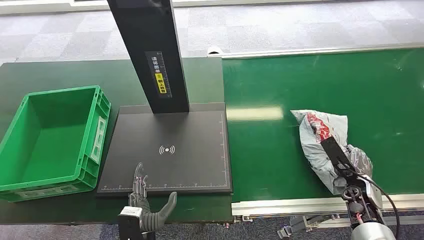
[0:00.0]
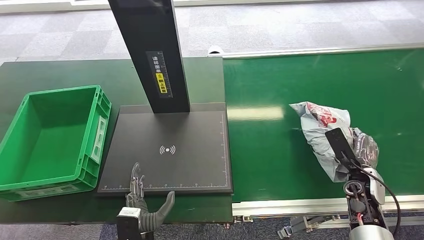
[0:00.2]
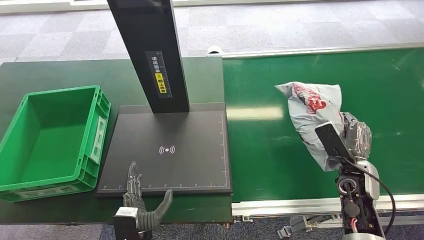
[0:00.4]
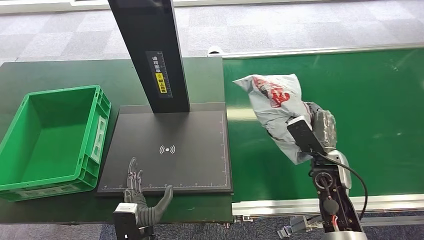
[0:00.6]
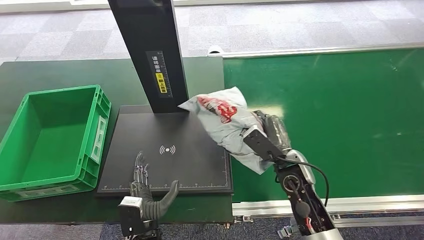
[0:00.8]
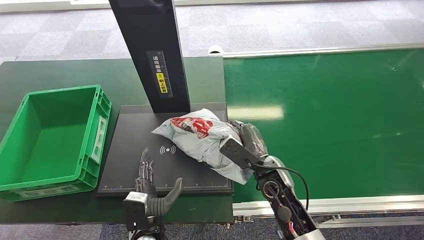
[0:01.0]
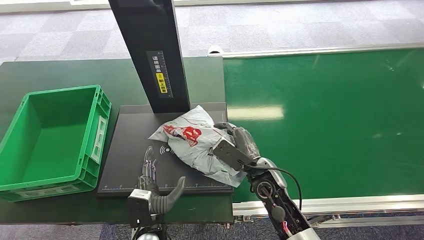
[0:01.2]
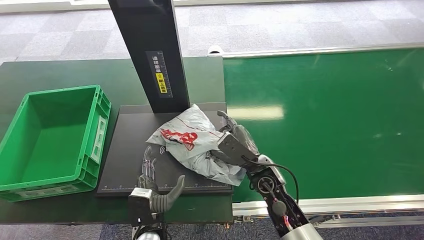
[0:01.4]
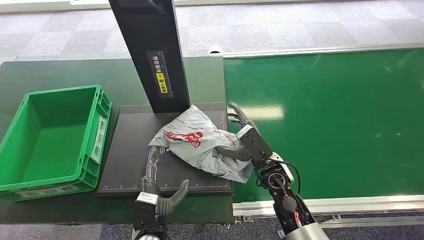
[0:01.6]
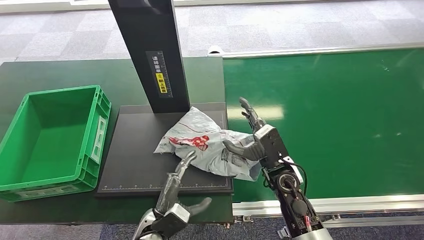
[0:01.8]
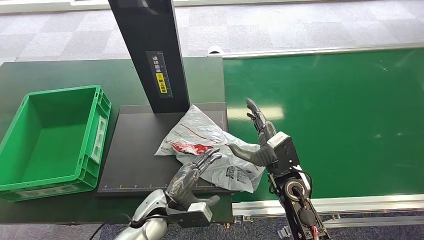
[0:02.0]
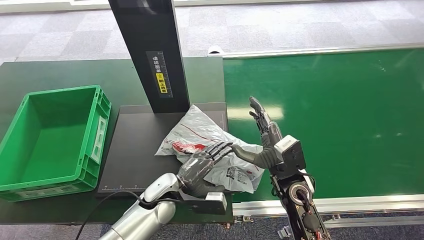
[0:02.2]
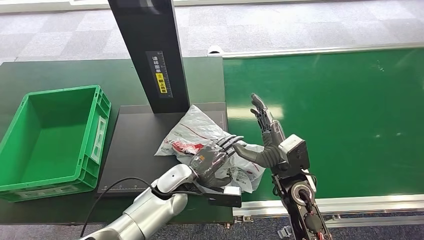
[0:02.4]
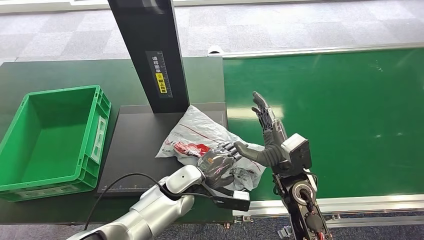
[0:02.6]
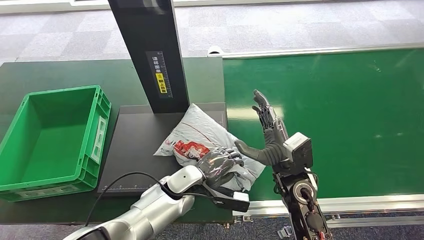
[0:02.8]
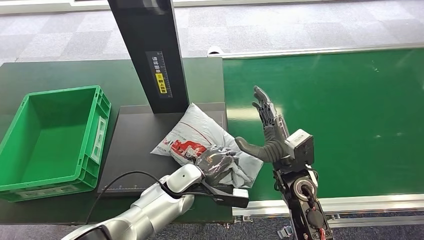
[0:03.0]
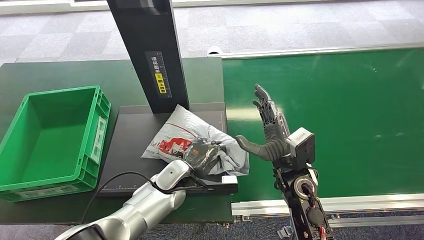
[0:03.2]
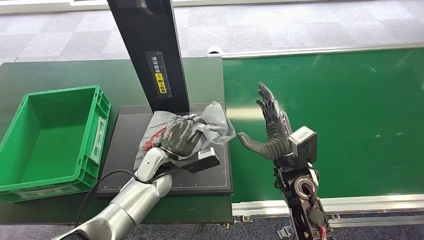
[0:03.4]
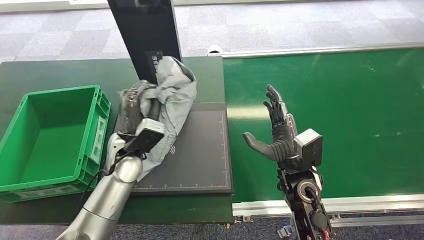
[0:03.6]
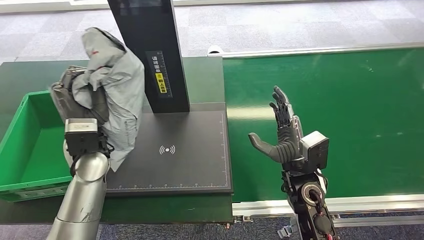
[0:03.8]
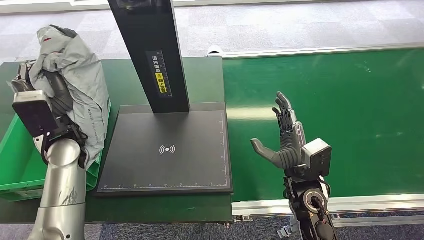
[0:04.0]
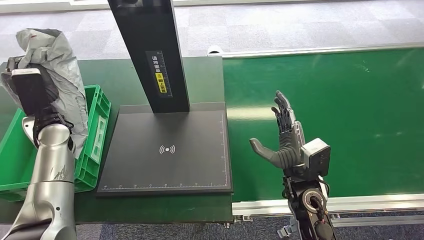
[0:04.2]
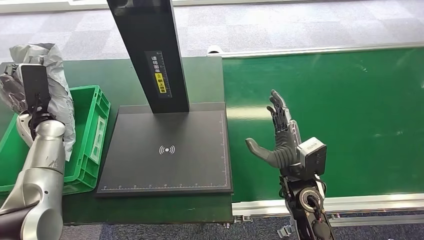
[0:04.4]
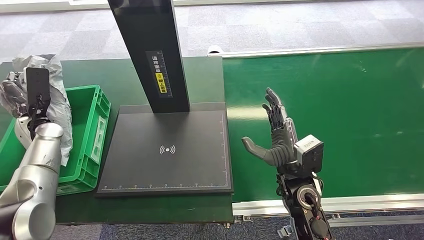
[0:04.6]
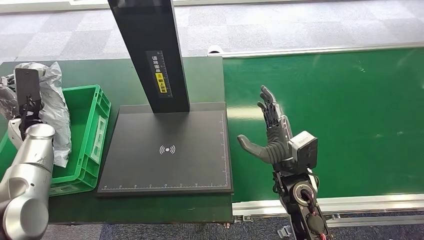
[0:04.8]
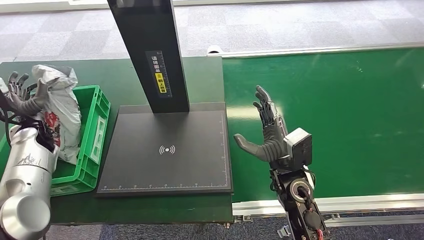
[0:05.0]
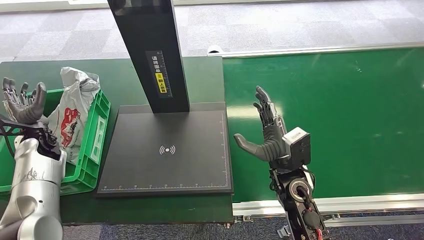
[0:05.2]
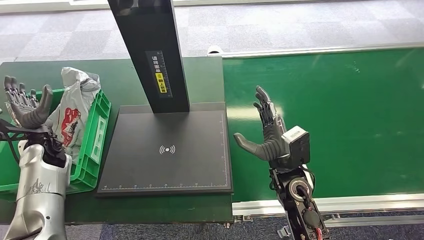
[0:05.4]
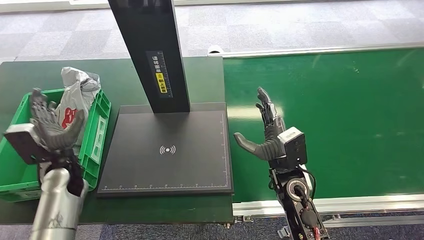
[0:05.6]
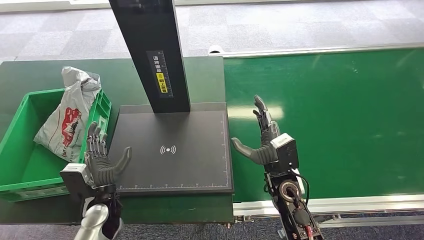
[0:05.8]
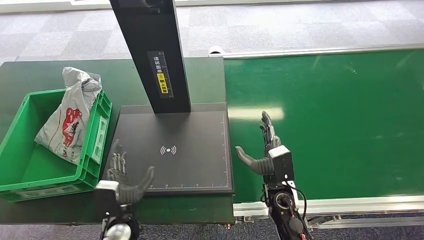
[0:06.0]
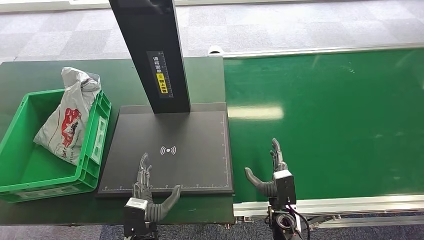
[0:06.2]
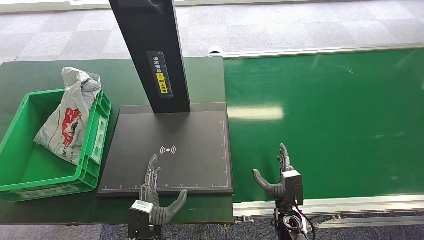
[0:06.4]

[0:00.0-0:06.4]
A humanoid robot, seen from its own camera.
Step, 0:00.0 to 0:00.6: Pick up the package from the conveyor belt.
Step, 0:00.8 to 0:02.8: Place the package onto the inbound machine.
Step, 0:03.0 to 0:04.0: Pick up the package from the inbound machine.
Step, 0:04.4 to 0:06.4: Place the package into the parcel locker.
0:01.6 to 0:03.2: The left hand heads forward, covering roughly 15 cm; the right hand moves approximately 5 cm.
0:04.8 to 0:06.4: The left hand goes roughly 40 cm to the right, backward and downward. The right hand goes roughly 20 cm downward and backward.
